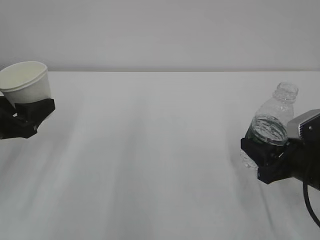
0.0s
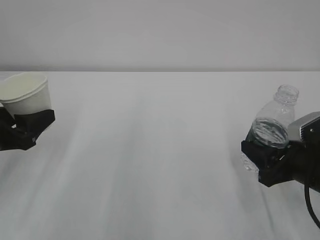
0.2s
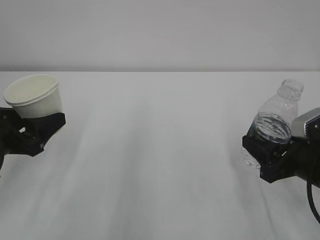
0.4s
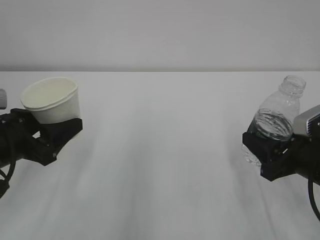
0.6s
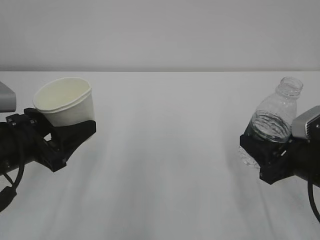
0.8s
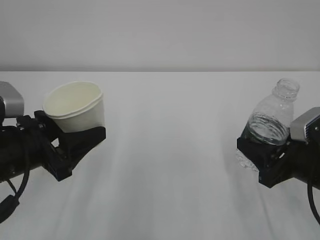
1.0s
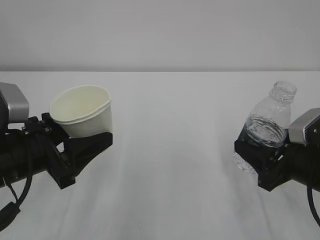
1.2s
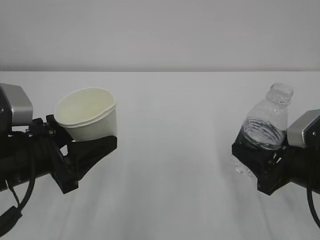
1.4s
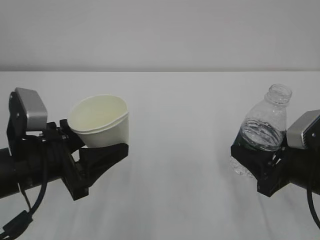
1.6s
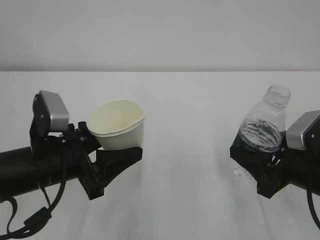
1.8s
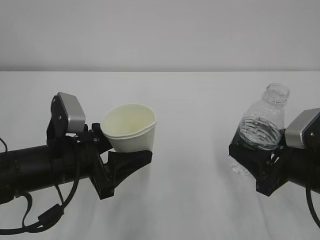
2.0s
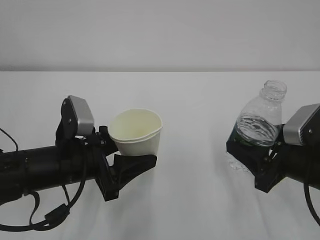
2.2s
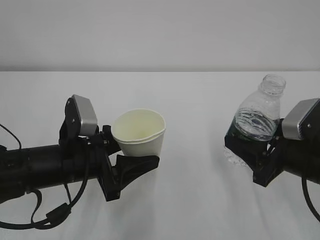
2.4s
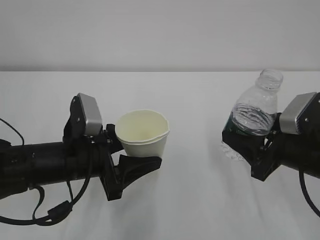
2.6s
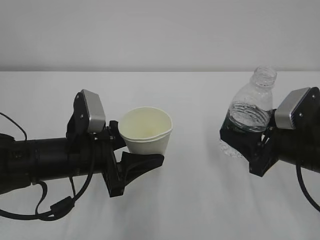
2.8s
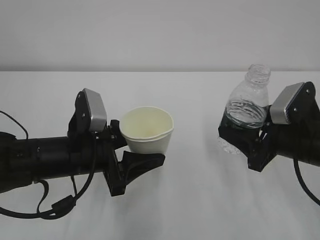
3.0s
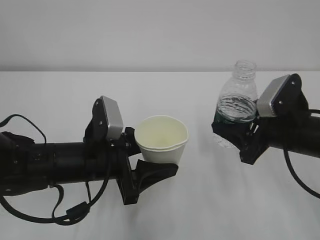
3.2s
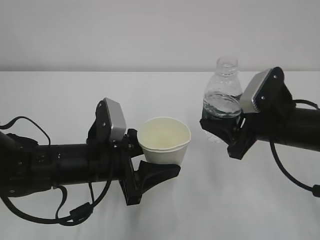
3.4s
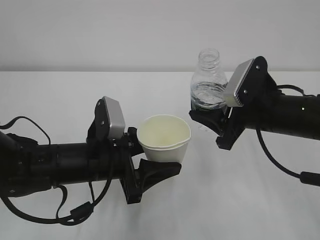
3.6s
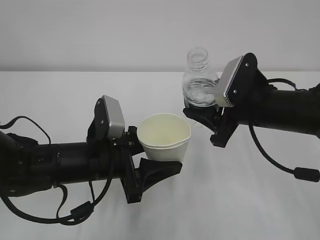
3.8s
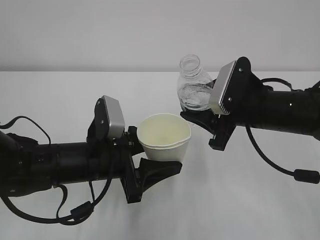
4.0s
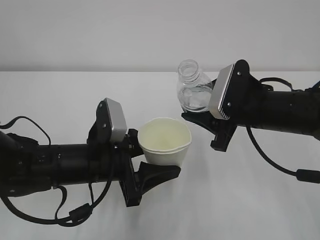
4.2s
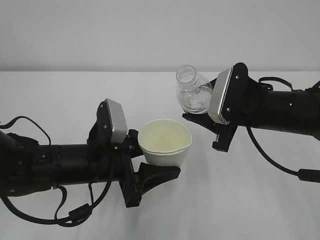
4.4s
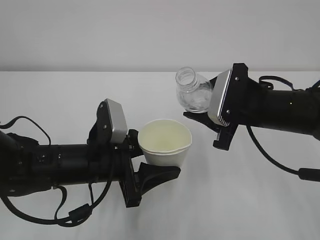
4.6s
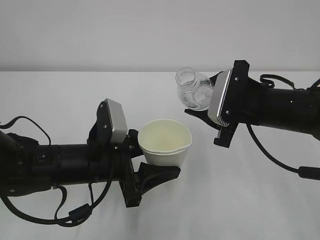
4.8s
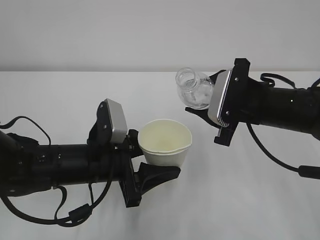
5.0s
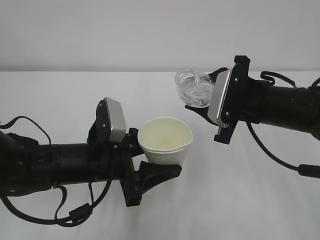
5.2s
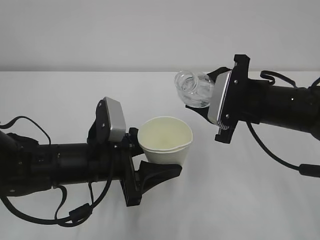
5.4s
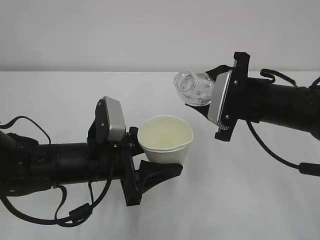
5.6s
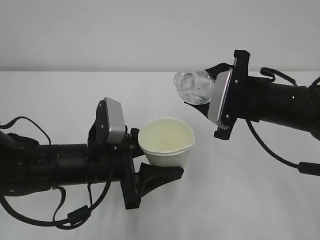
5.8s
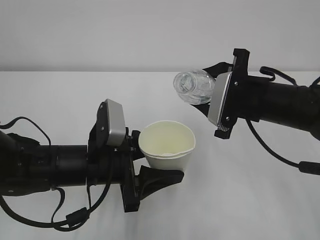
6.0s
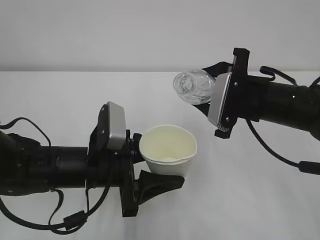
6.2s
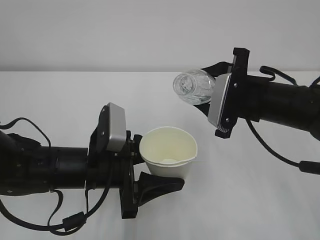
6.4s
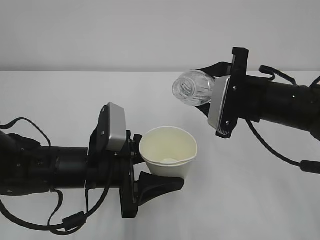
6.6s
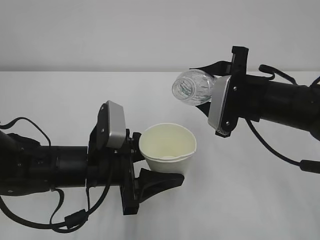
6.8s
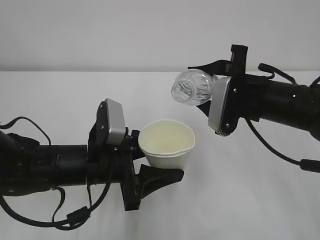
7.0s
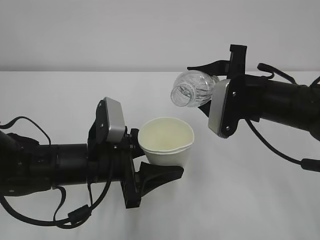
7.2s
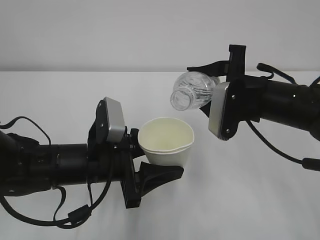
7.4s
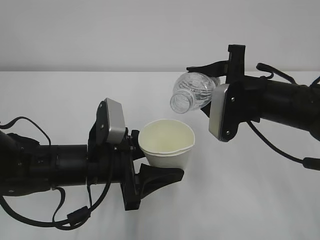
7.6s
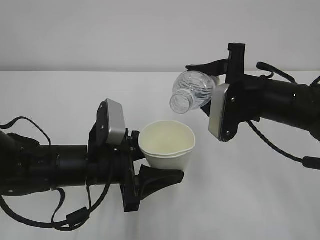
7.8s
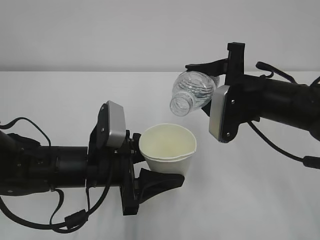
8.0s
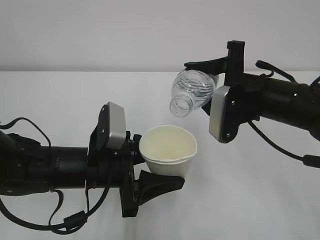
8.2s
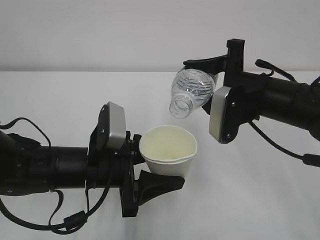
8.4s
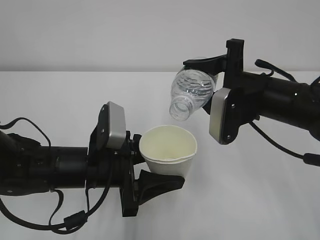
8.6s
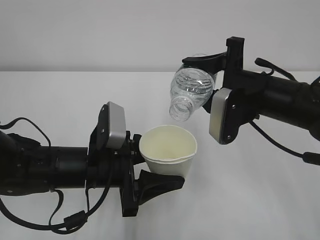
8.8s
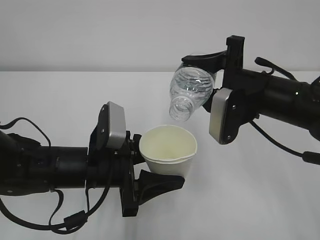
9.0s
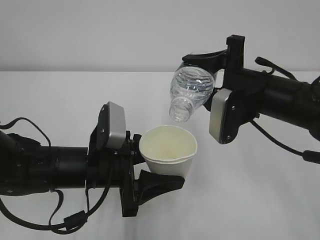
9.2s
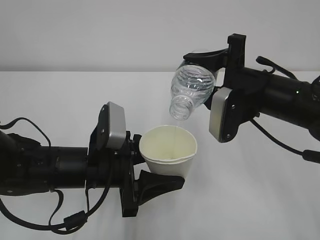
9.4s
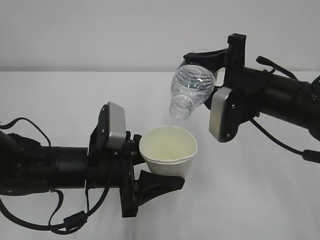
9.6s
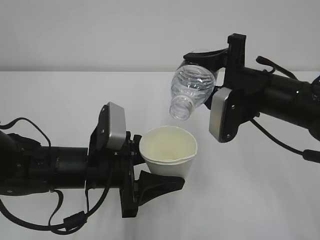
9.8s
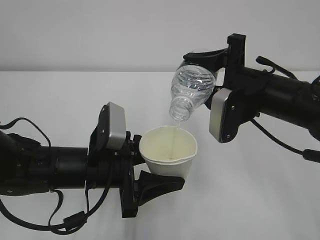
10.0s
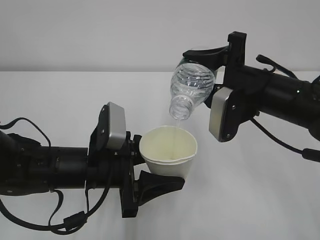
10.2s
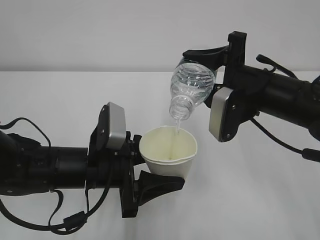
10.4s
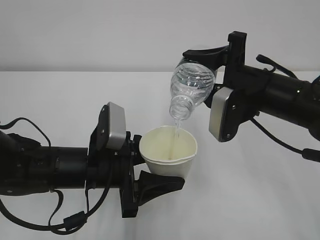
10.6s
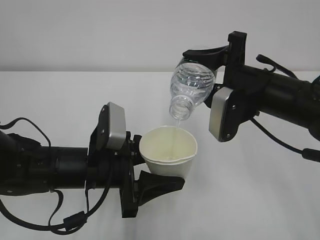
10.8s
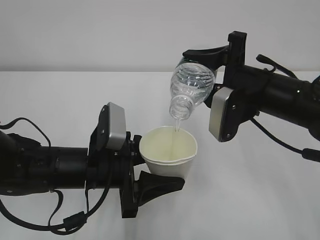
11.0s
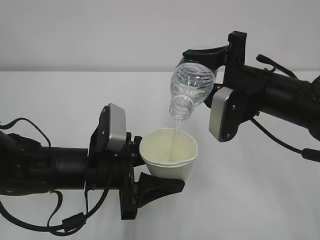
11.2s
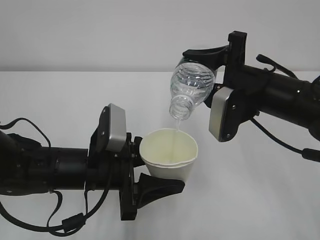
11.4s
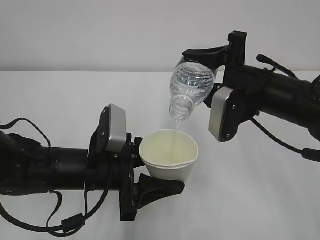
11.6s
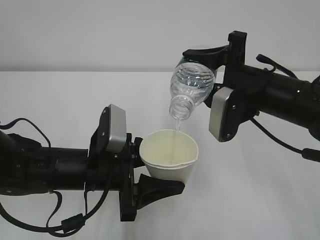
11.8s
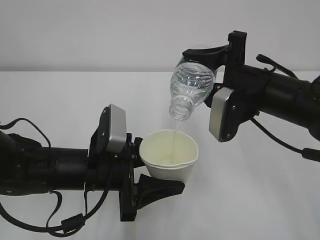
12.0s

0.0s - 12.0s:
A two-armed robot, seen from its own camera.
0.0s - 1.6s: The left gripper goes roughly 10 cm to the right and backward.
1.6s - 3.0s: The left gripper moves roughly 5 cm.
3.0s - 4.4s: The right gripper shifts roughly 5 cm to the left.
4.4s - 6.0s: The grippers make only small movements.
6.0s - 7.6s: The grippers stay close to where they were, moving slightly.
7.6s - 9.0s: The grippers move only a little.
9.0s - 12.0s: Both grippers stay put.

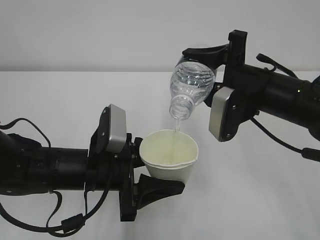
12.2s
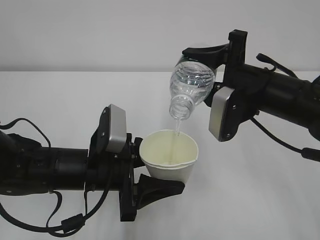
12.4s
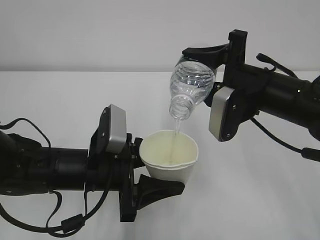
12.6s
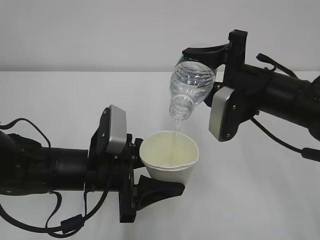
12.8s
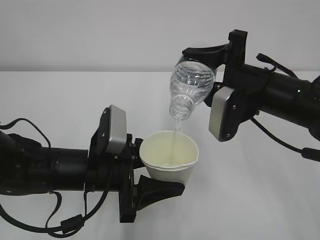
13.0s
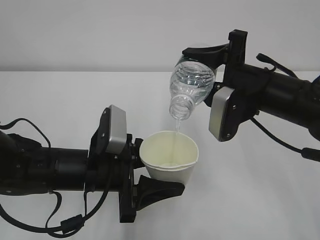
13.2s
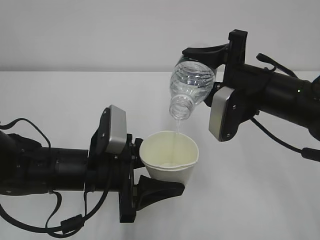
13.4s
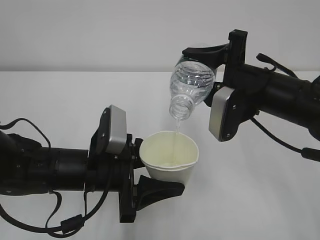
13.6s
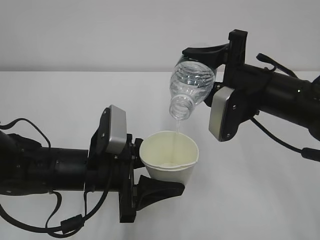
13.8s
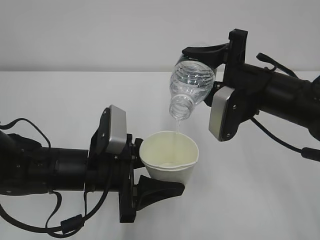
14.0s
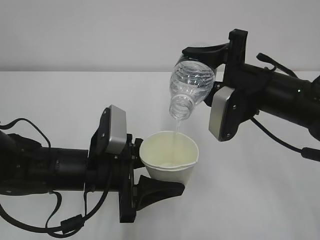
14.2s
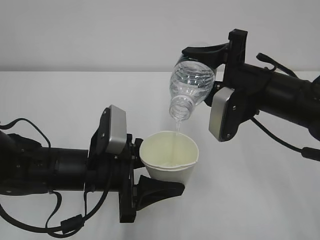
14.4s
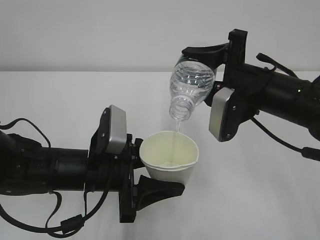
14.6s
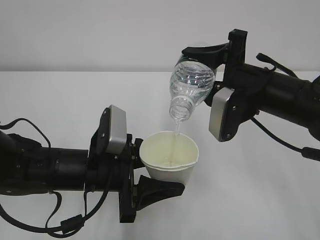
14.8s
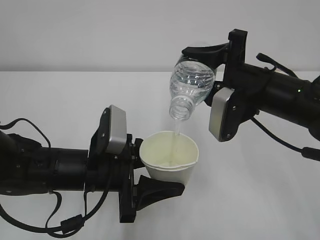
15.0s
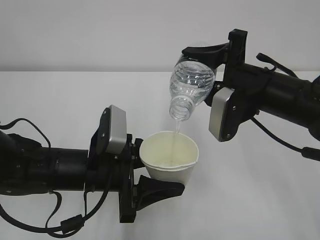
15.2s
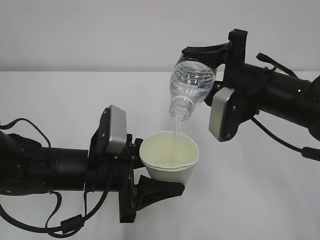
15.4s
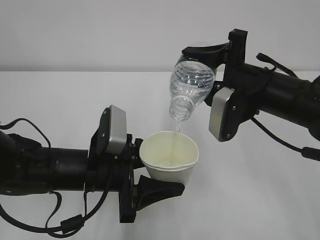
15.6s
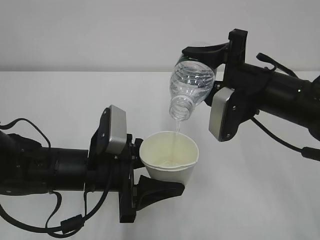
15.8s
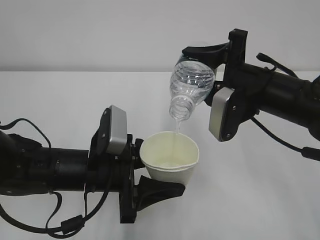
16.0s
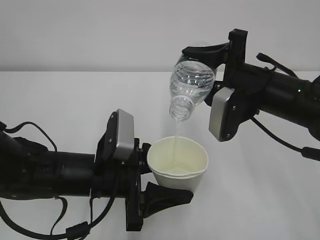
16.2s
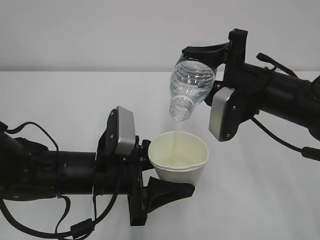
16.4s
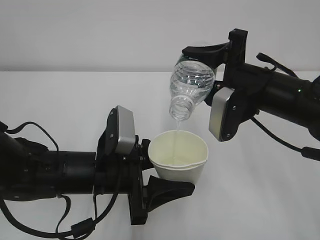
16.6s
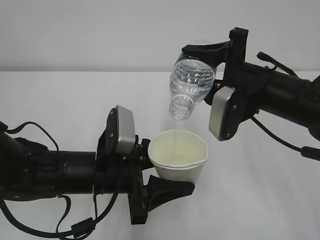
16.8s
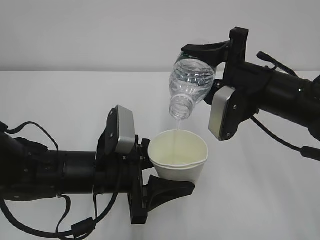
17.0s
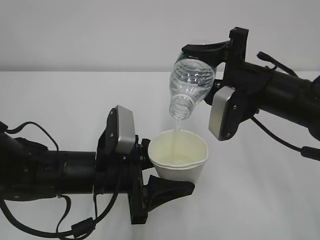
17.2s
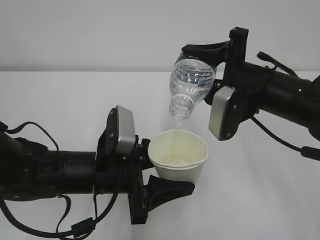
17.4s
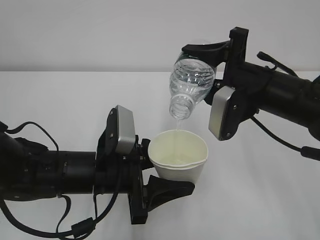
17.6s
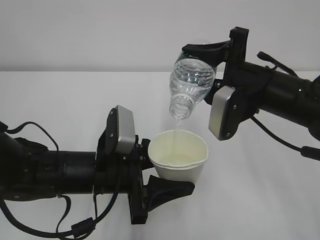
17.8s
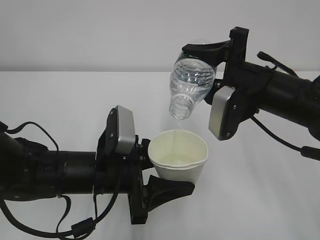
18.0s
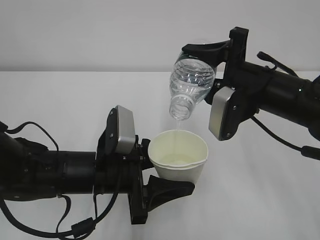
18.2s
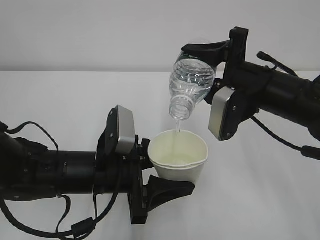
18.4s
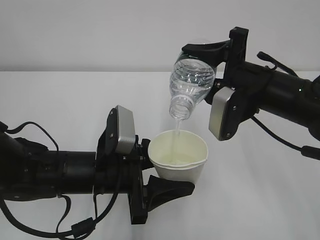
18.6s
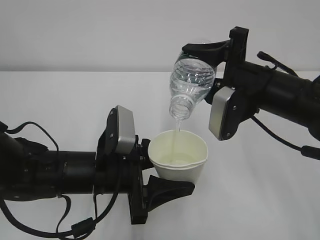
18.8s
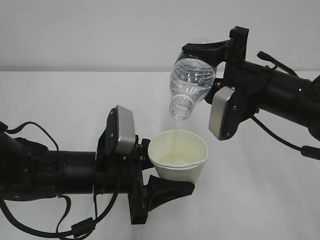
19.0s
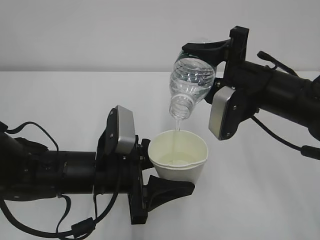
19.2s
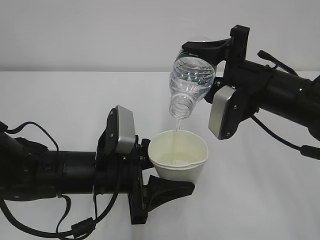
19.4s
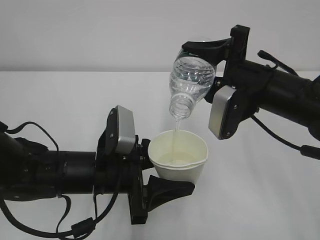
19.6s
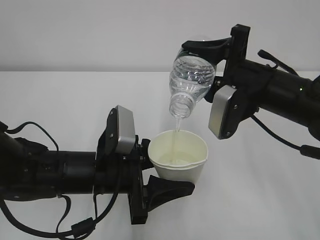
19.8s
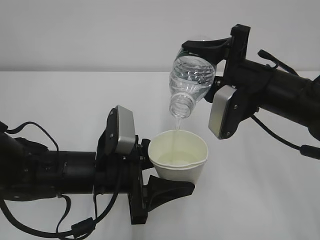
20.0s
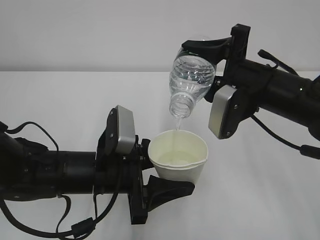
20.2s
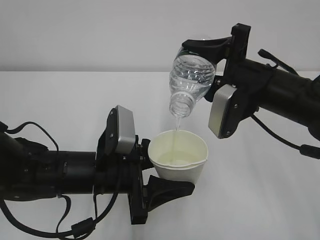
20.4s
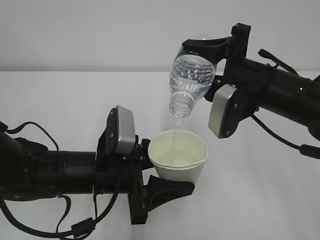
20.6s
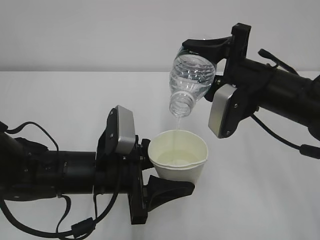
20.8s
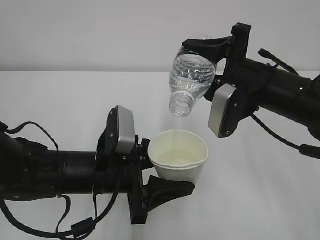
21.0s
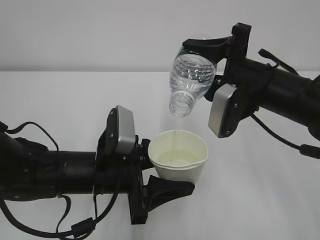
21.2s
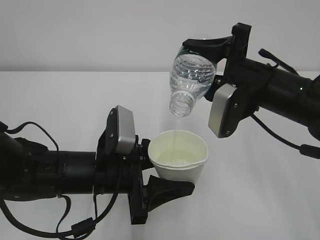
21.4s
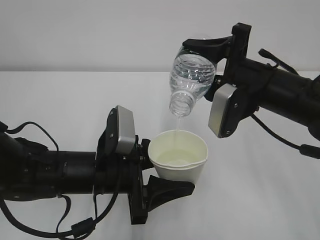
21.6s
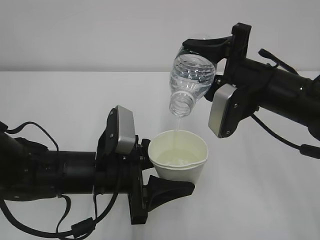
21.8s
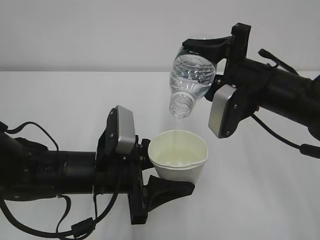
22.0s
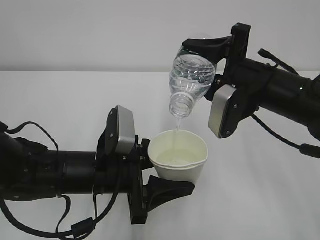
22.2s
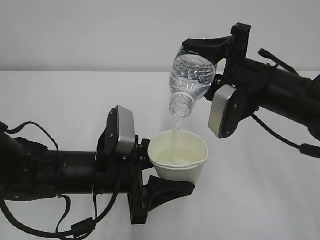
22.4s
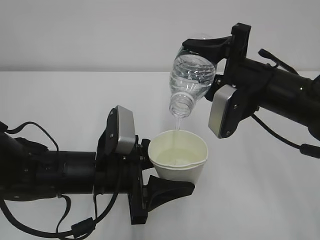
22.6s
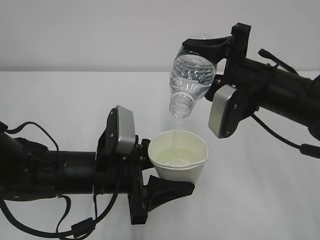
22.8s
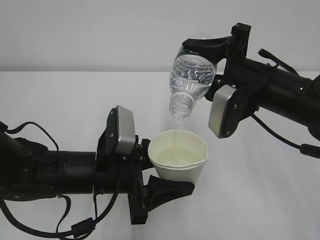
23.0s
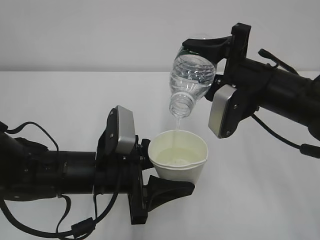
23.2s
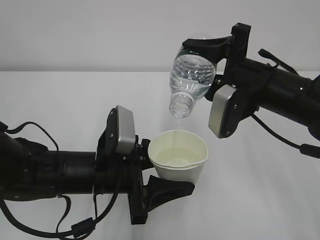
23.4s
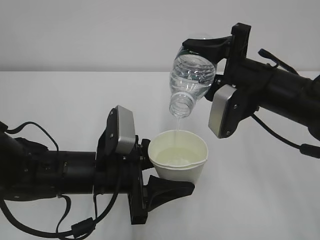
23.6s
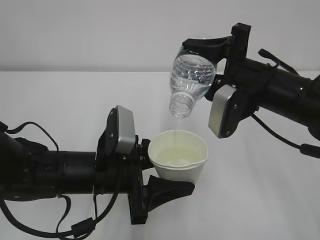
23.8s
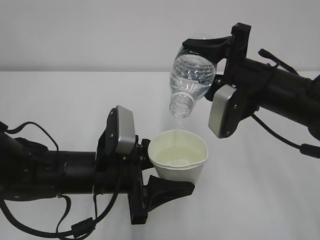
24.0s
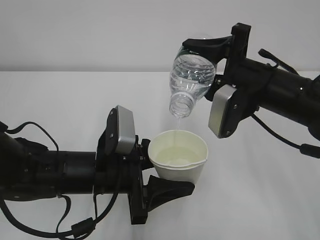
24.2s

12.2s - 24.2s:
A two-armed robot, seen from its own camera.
12.2s - 15.2s: Neither gripper changes place.
15.2s - 16.6s: The grippers stay close to where they were, moving slightly.
16.6s - 24.2s: Both grippers stay put.
